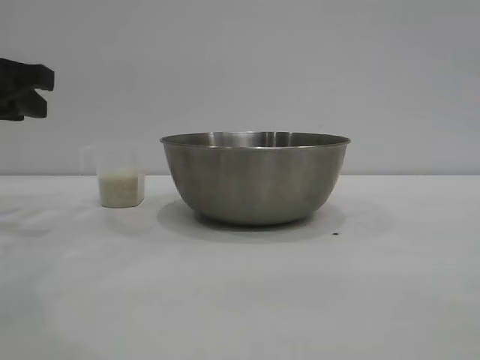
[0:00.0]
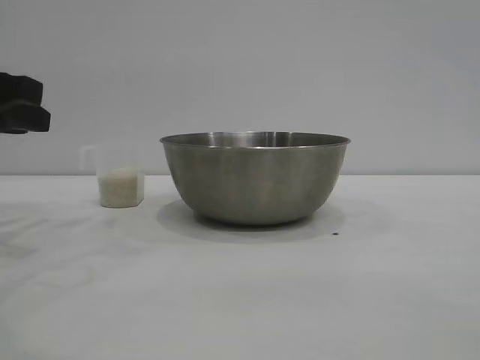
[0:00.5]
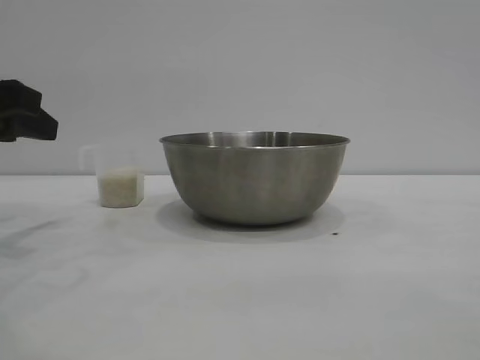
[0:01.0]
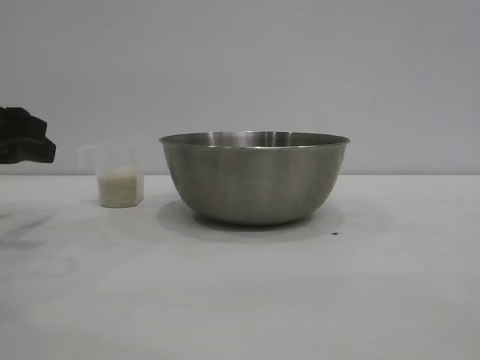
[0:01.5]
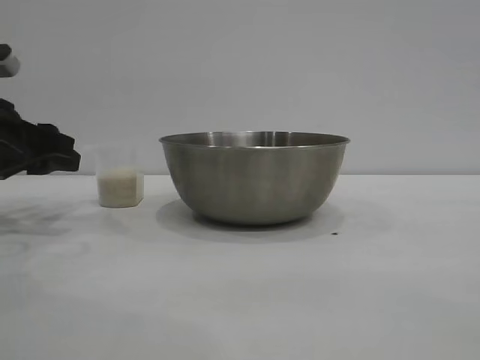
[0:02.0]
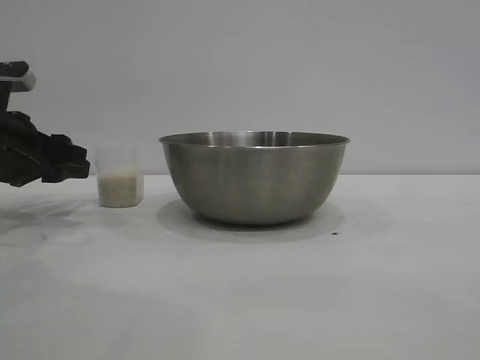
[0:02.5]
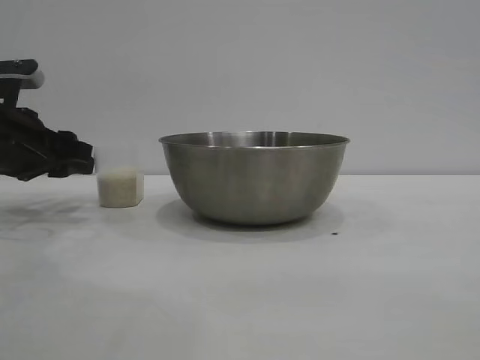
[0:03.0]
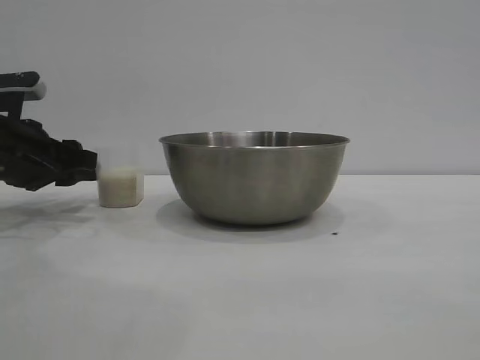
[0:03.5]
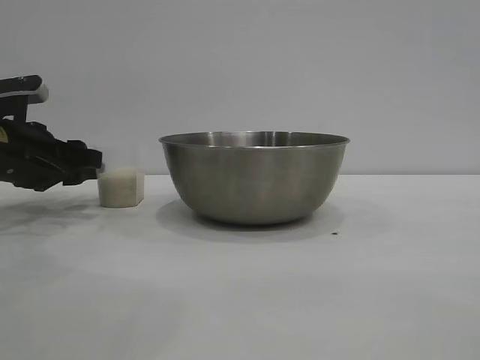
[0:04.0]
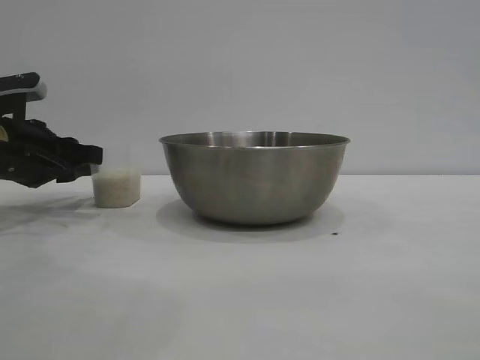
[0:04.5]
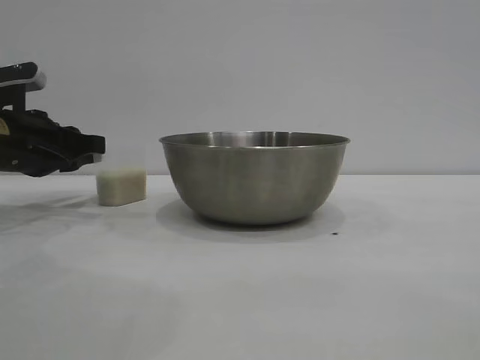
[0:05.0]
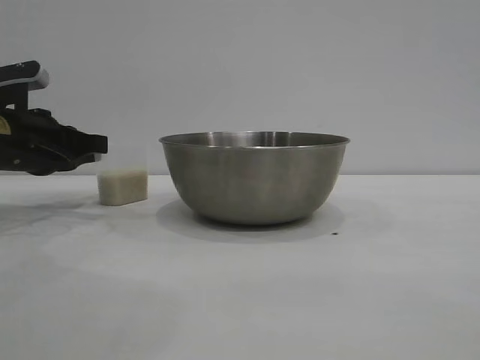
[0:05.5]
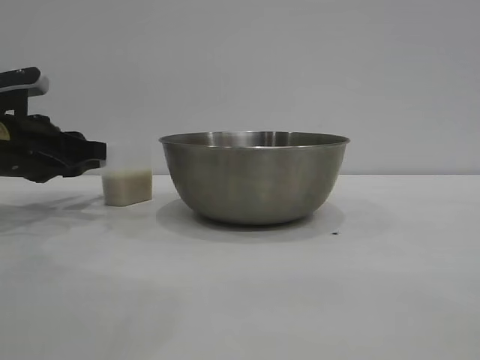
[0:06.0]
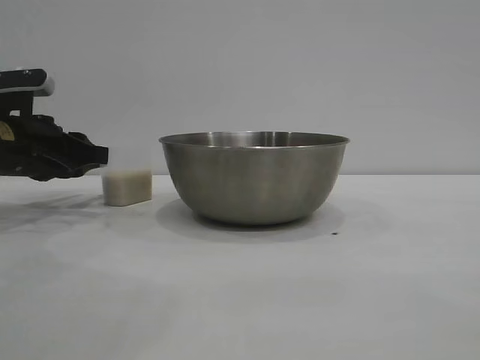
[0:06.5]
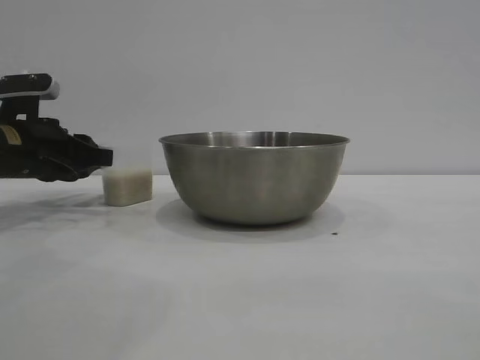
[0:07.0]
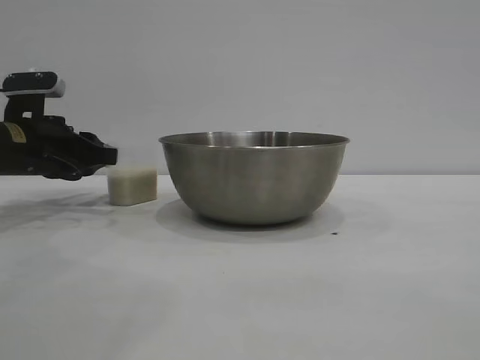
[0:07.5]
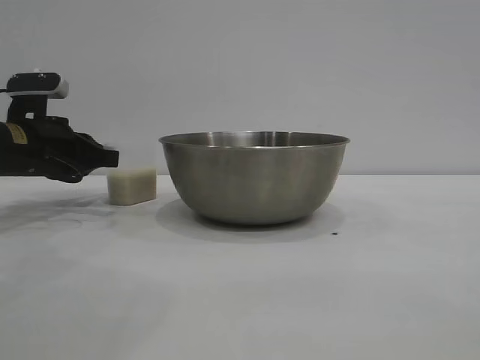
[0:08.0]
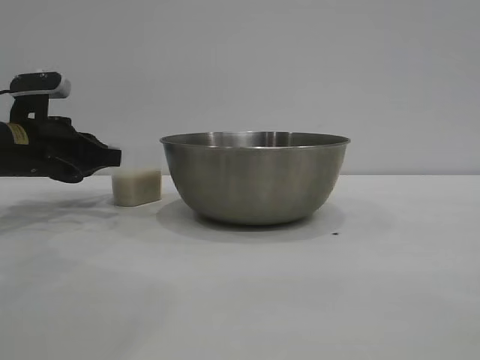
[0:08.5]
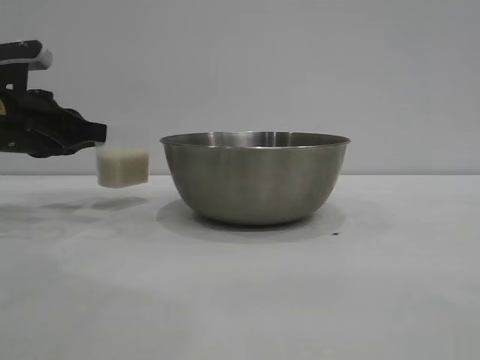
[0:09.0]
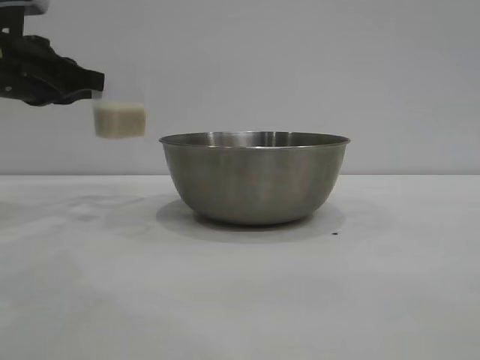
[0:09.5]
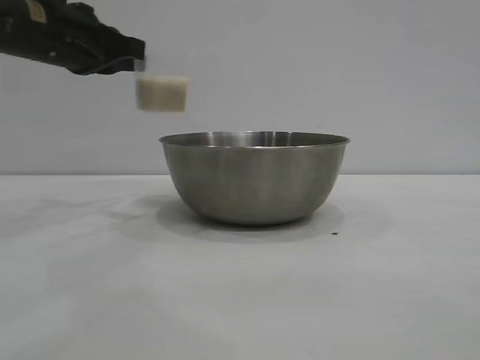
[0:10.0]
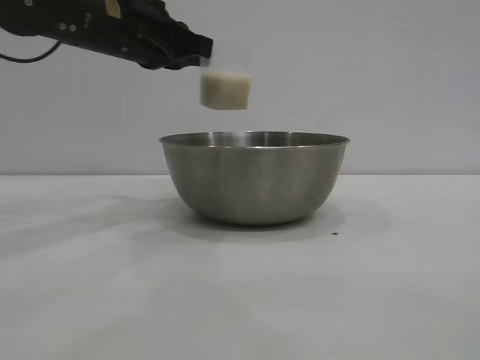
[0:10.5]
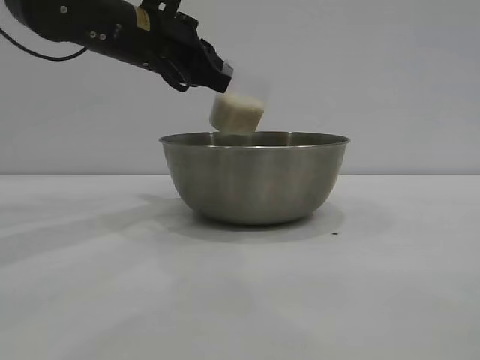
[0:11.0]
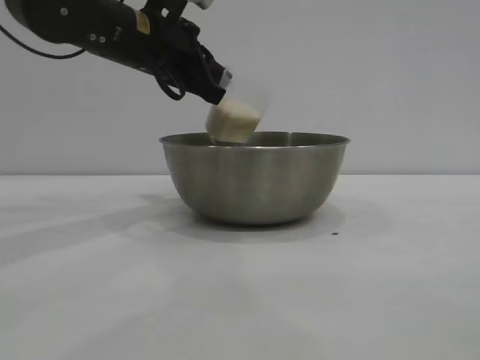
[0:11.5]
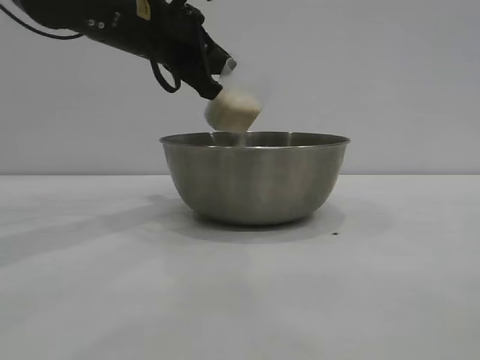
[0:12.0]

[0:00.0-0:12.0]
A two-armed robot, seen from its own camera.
Task of the whole recording: the right gripper grasp the rice container and place it in the center of the table, the left gripper grasp the rice scoop and pour the rice into the rice container.
Step, 0:00.0 to 0:09.0: Pick up the cup with rice in it with the left gripper.

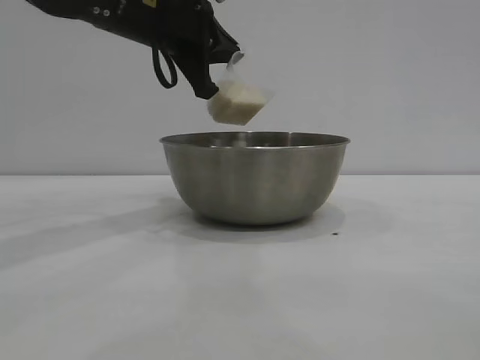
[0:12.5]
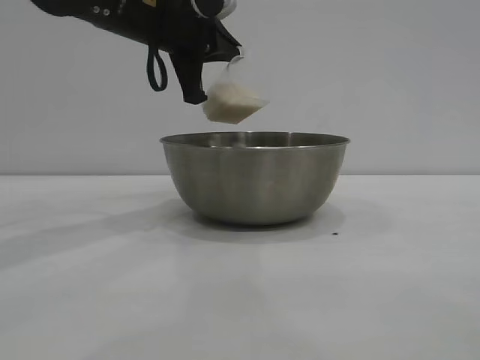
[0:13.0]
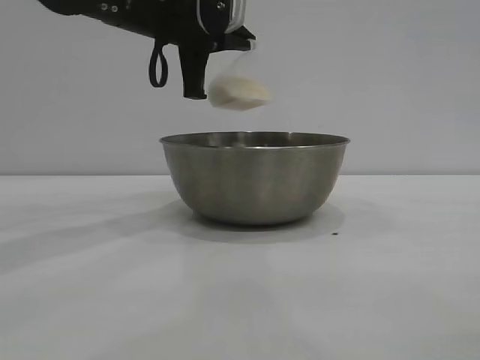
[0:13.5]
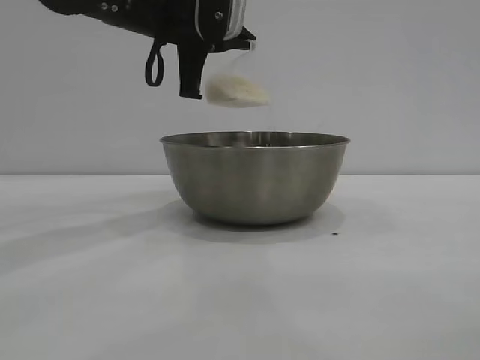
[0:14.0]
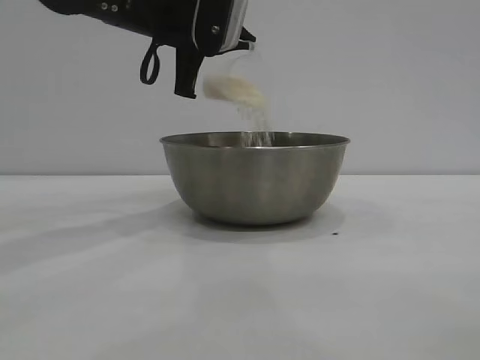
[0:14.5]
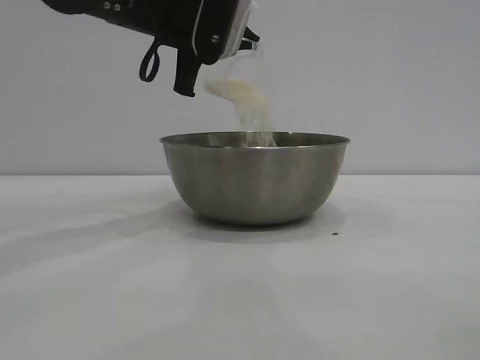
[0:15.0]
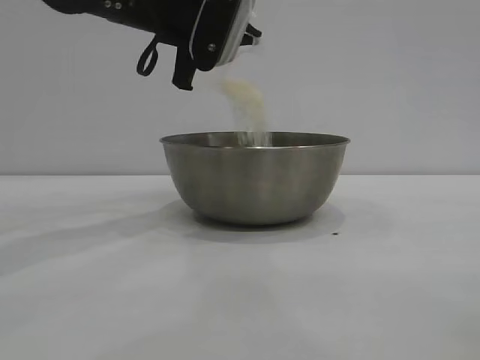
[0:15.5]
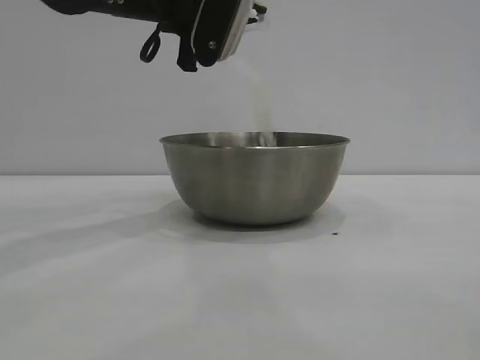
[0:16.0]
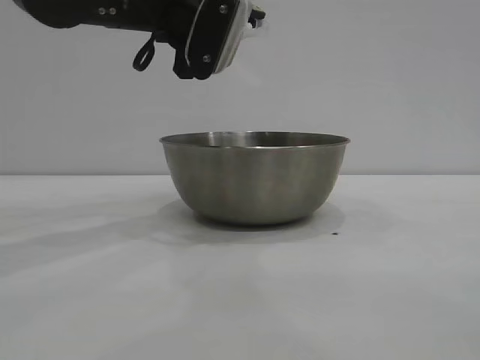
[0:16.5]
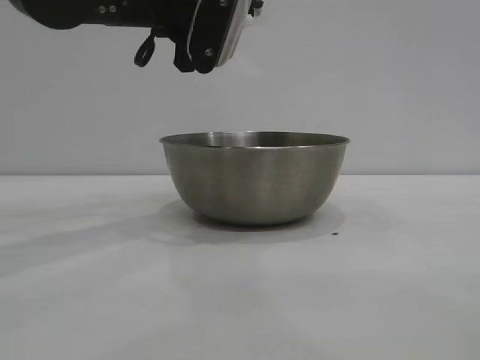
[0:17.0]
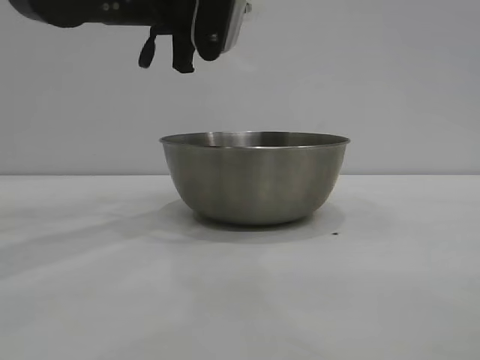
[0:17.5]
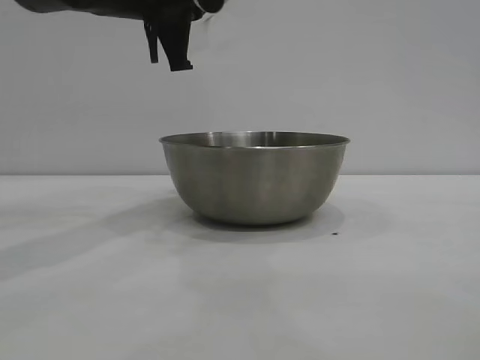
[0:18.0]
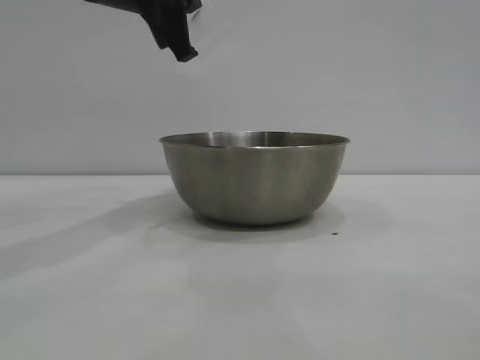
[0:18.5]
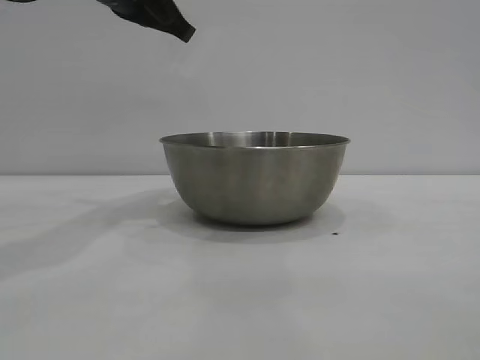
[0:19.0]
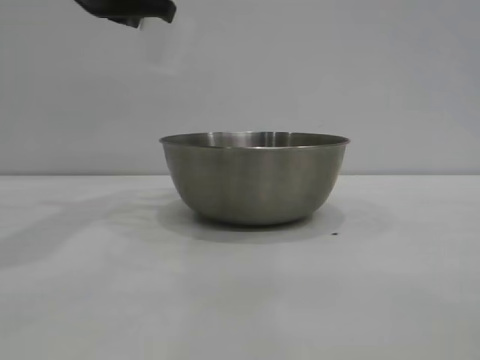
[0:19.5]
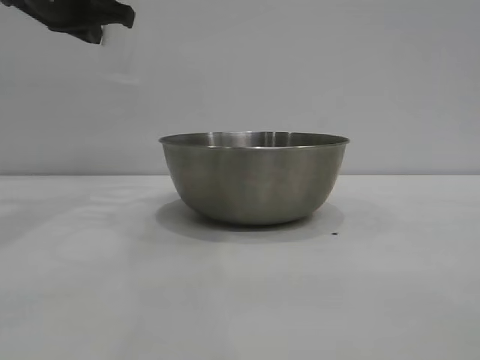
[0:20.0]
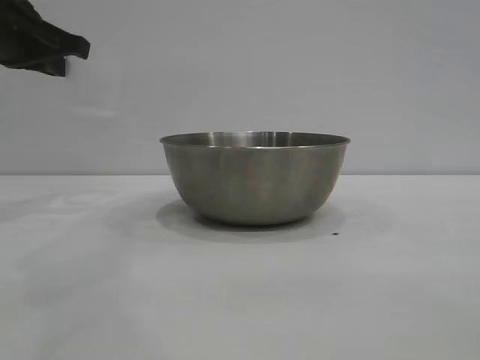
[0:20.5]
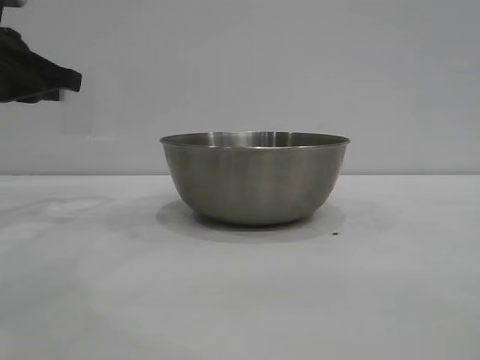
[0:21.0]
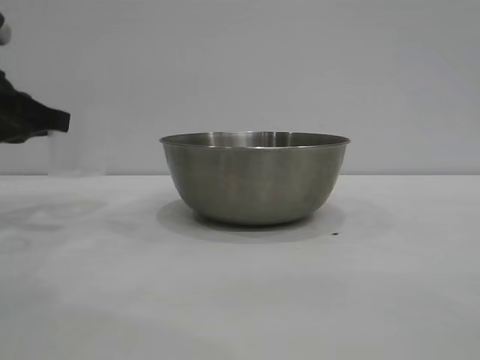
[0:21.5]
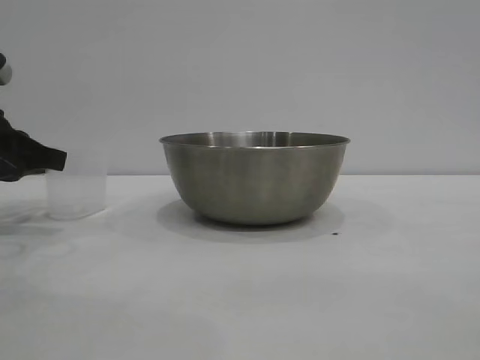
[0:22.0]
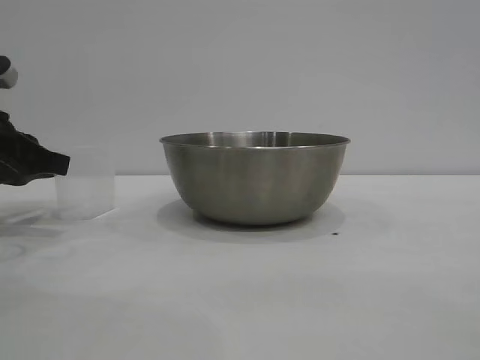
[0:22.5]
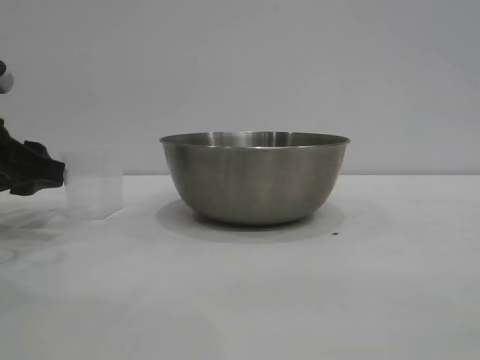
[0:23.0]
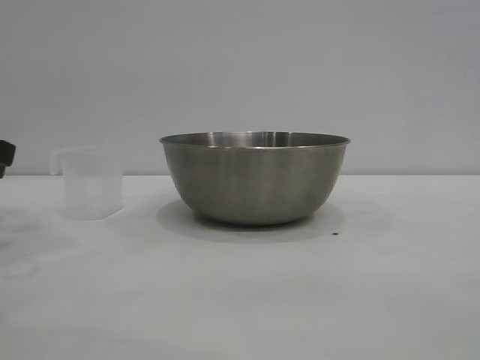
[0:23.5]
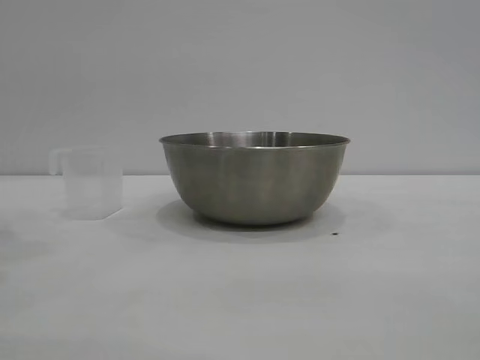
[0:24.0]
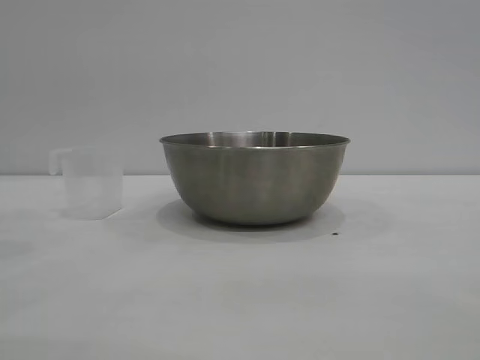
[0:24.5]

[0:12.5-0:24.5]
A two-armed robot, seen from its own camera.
Task of the whole recording: the right gripper grasp the rice container and place it in the center of the table, the left gripper grasp the rice scoop and pour the rice into the rice container.
Step, 0:12.5 to 0:18.5: Pour the rice from the cup into the bowl with the left gripper.
Step, 0:19.0 to 0:23.0: Place the cup on the table with the left gripper.
